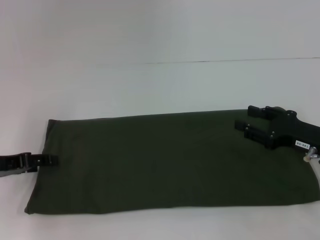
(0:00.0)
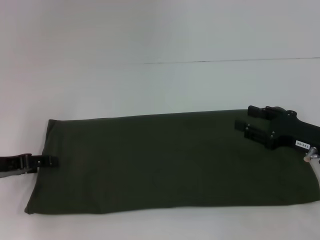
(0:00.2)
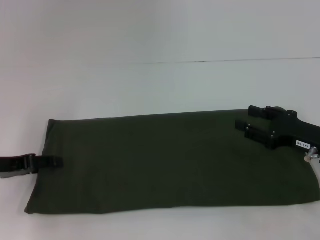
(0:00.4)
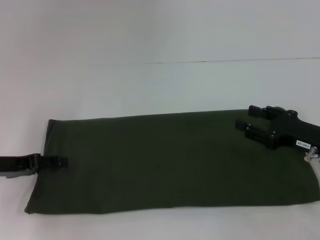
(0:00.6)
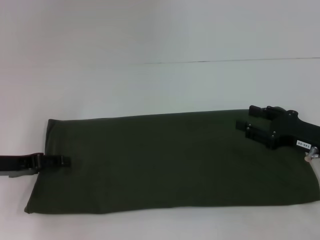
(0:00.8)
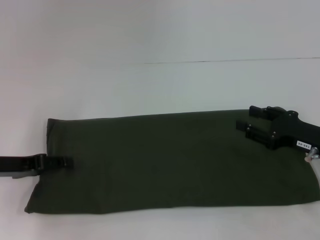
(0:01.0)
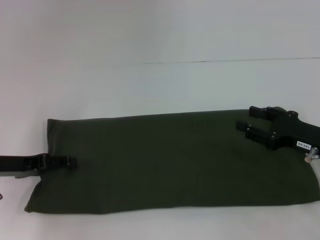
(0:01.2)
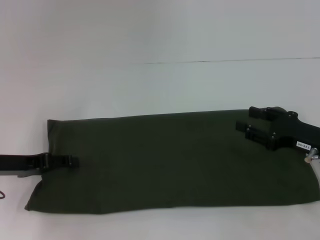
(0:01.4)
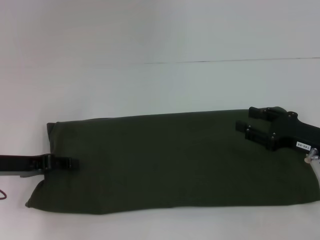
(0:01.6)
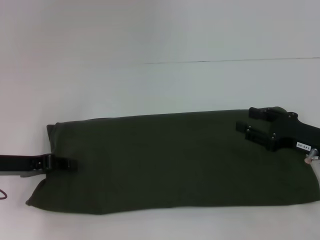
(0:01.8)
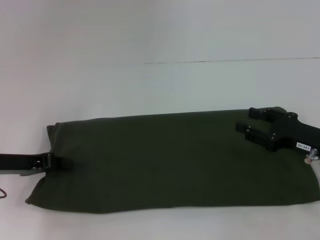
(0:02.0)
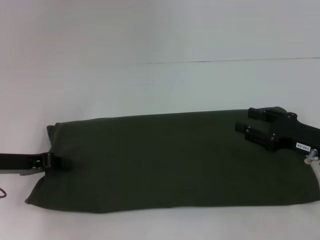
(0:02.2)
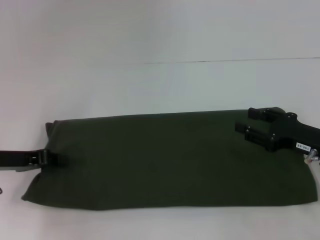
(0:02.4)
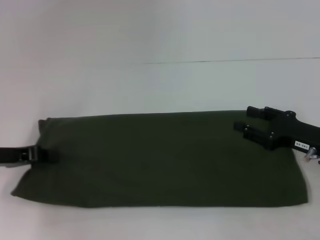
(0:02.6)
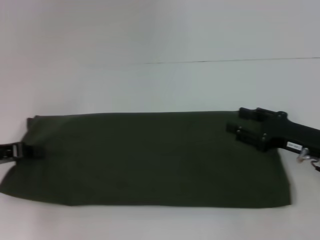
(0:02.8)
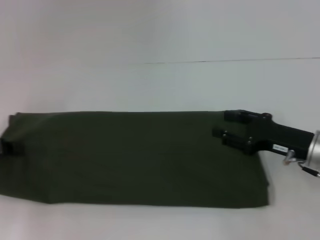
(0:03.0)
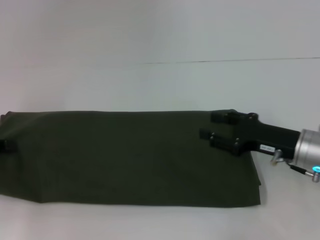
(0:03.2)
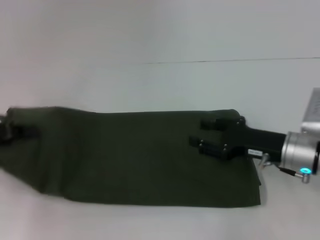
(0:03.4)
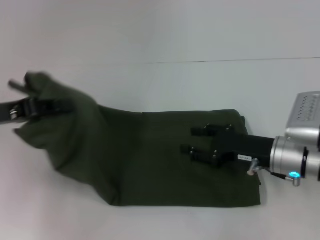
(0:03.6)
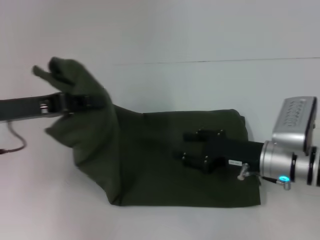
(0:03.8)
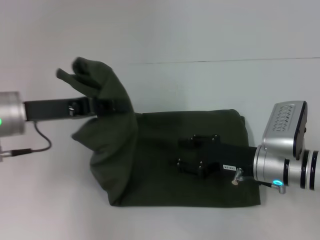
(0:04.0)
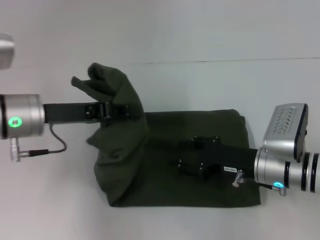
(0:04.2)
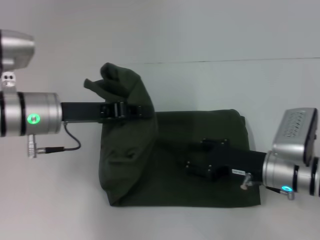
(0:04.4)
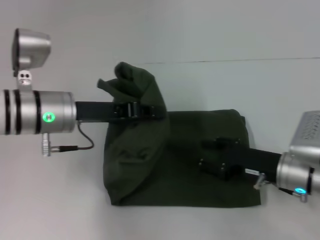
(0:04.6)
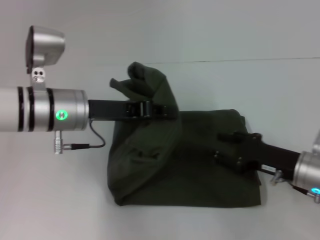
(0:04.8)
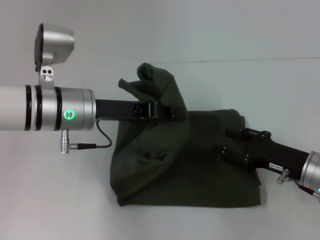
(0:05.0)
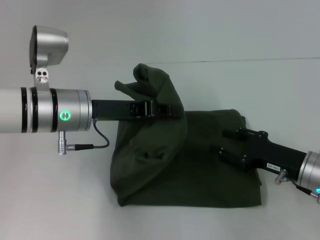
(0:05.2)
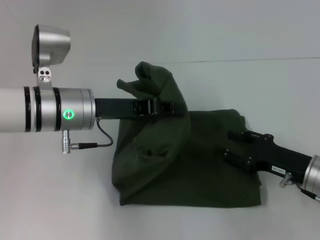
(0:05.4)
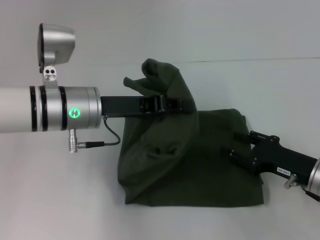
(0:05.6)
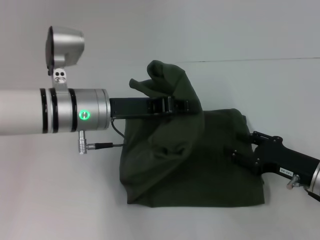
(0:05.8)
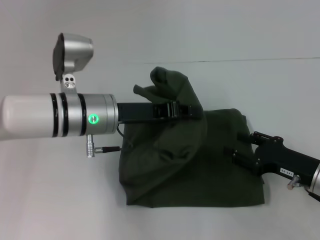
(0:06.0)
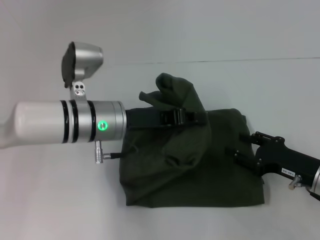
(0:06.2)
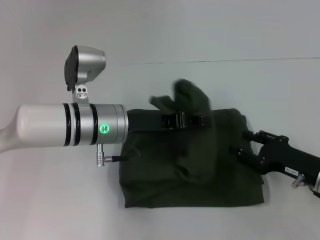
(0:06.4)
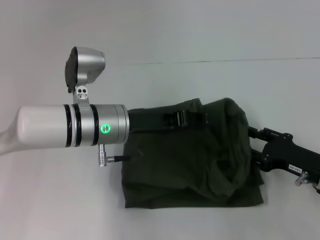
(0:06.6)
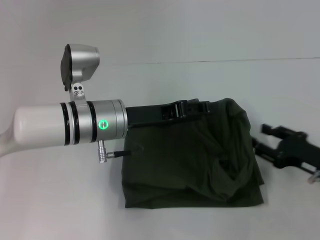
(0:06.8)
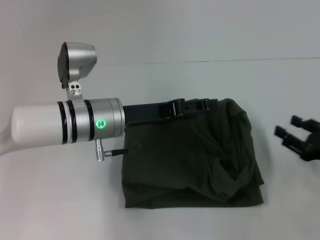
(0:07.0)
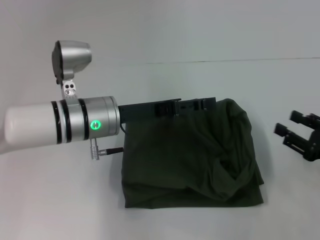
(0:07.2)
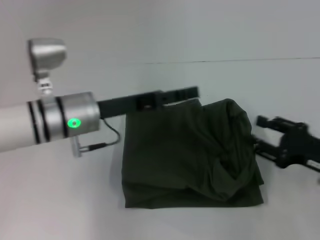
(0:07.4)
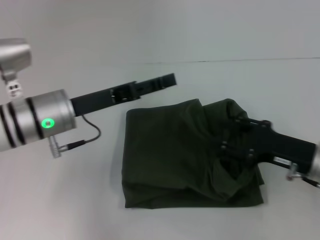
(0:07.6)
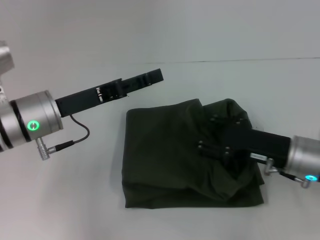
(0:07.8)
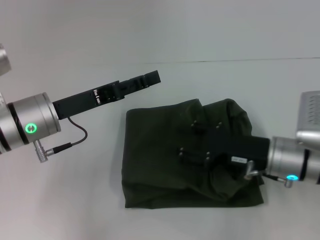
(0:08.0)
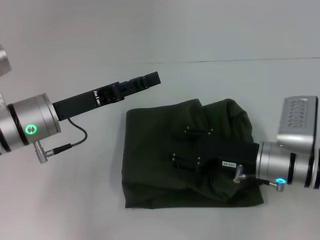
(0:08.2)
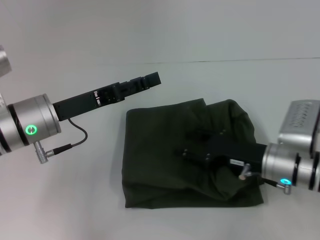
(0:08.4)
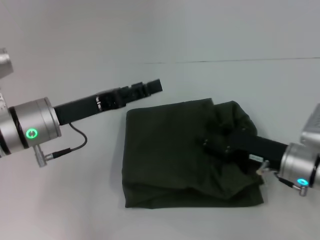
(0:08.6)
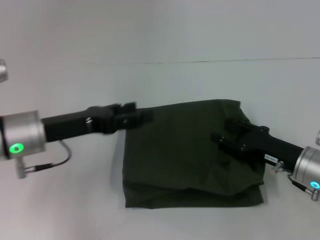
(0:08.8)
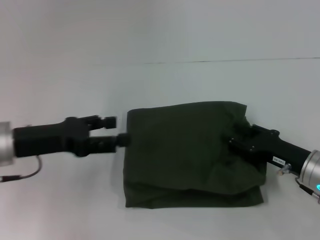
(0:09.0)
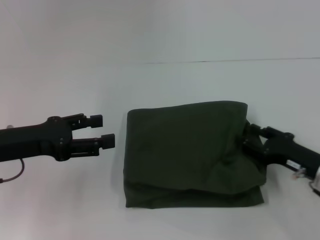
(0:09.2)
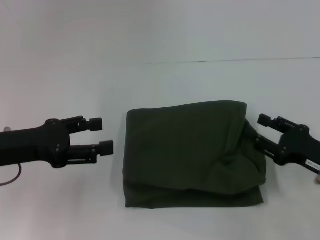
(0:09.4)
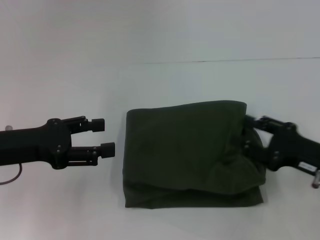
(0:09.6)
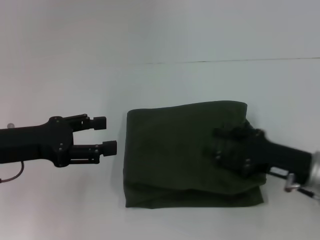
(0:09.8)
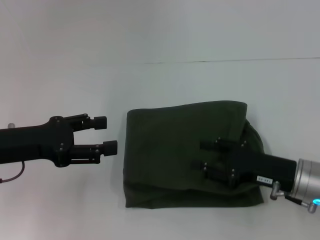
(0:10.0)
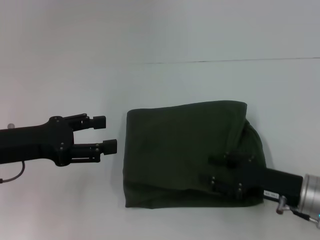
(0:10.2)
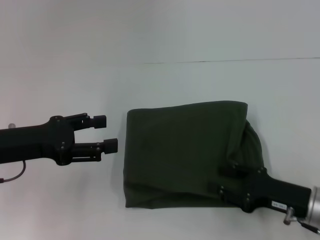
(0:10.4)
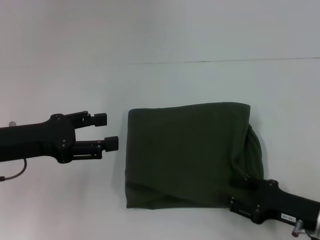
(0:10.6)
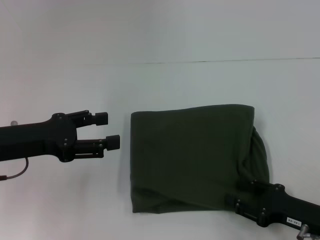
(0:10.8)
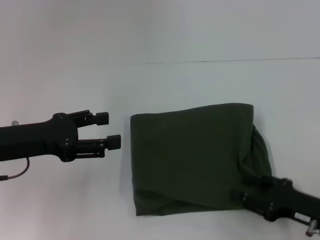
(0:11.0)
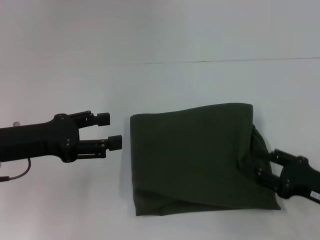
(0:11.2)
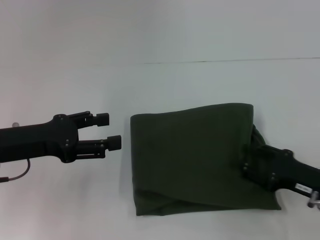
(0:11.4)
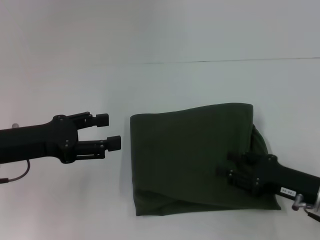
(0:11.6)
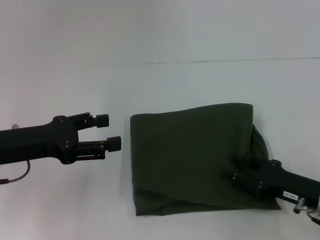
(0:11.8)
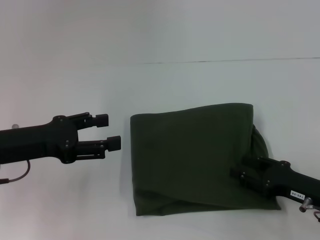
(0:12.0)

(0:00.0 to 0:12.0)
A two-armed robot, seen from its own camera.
Step, 0:00.0 - 0:09.4: Fold the clothes with your left hand.
0:00.0 - 0:01.6: There are only small adjustments of the grippers.
0:01.6 - 0:03.0: The left gripper heads to the left, covering about 5 cm, and closes its fingers.
0:03.0 - 0:04.4: The right gripper moves to the left, about 5 cm. Meanwhile the left gripper heads to the right, covering some 15 cm.
0:04.4 - 0:06.0: The grippers both shift to the right by approximately 5 cm.
0:06.0 - 0:07.6: The left gripper moves to the left, about 5 cm, and opens its fingers.
0:07.6 - 0:09.0: The left gripper heads to the left, covering about 5 cm.
0:09.0 - 0:10.4: The right gripper moves backward, roughly 5 cm.
0:10.4 - 0:12.0: The grippers move only a little.

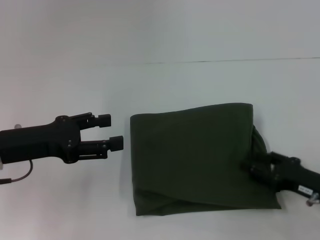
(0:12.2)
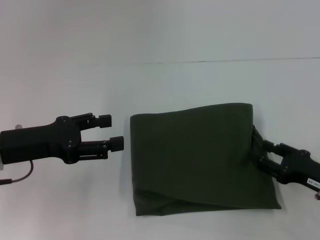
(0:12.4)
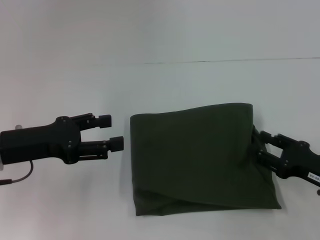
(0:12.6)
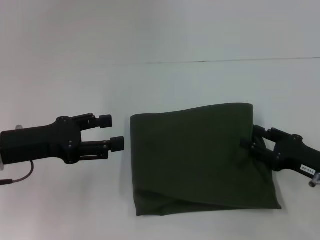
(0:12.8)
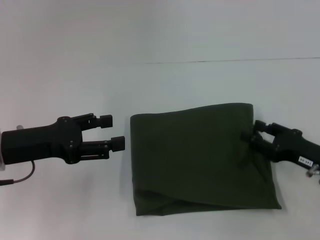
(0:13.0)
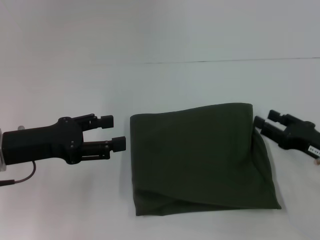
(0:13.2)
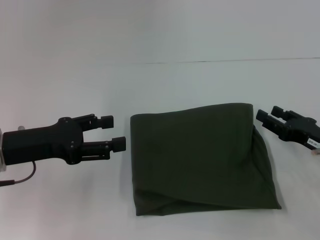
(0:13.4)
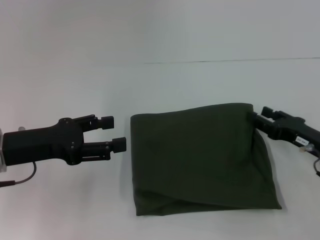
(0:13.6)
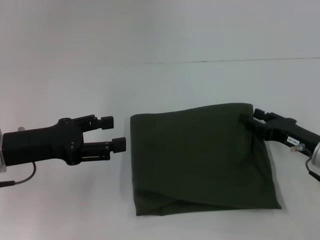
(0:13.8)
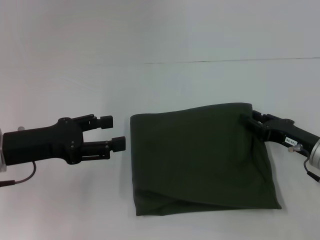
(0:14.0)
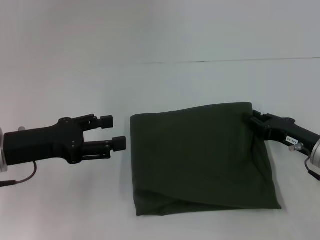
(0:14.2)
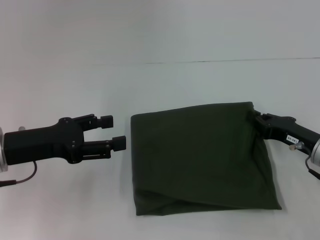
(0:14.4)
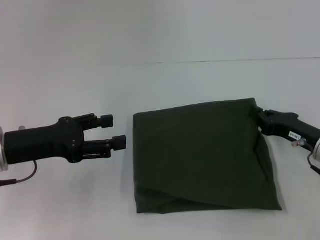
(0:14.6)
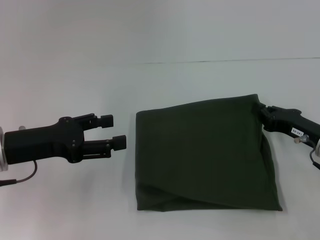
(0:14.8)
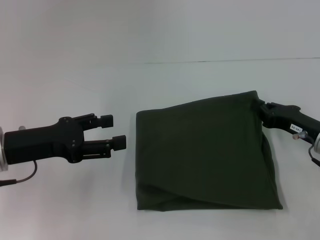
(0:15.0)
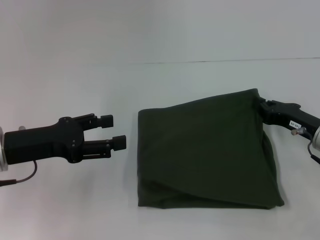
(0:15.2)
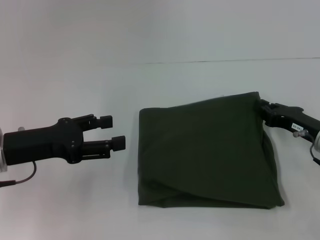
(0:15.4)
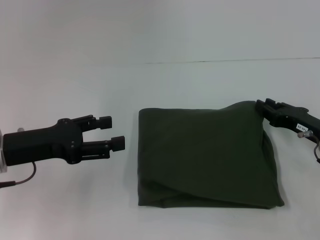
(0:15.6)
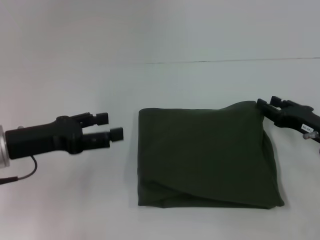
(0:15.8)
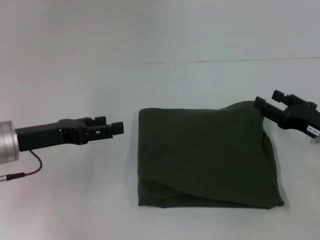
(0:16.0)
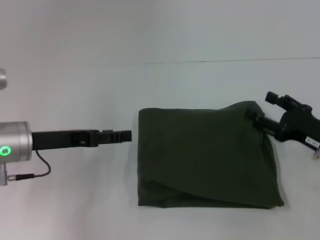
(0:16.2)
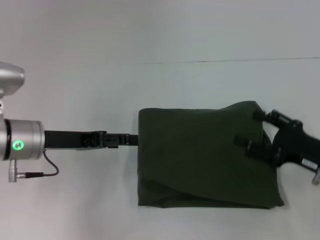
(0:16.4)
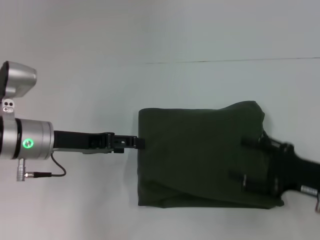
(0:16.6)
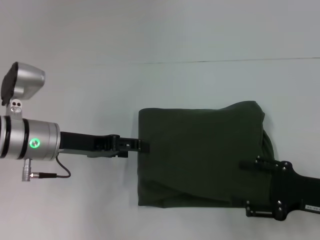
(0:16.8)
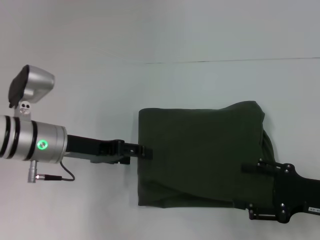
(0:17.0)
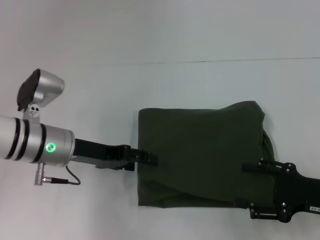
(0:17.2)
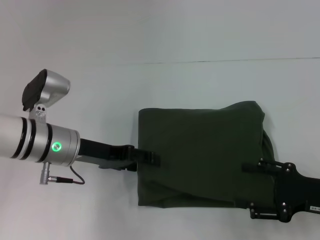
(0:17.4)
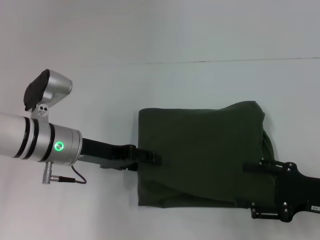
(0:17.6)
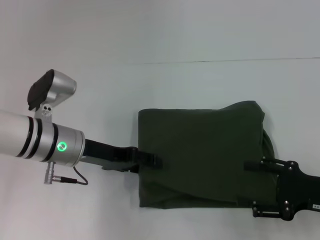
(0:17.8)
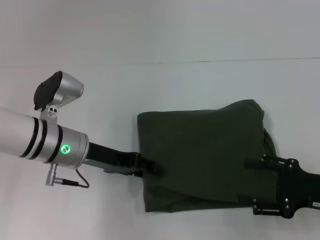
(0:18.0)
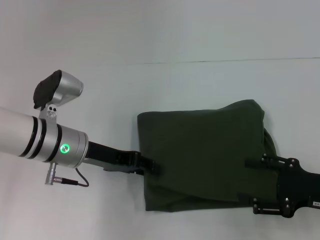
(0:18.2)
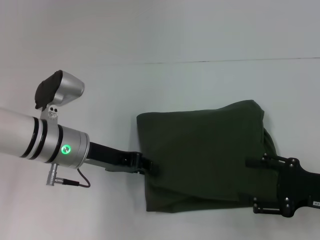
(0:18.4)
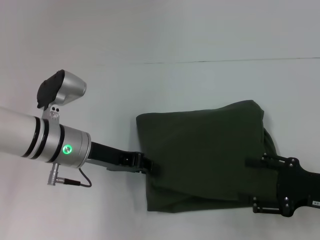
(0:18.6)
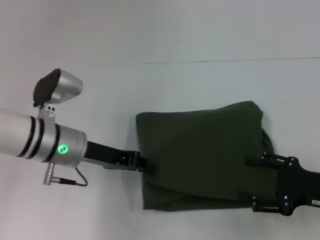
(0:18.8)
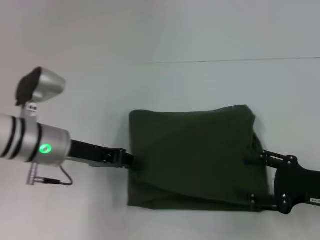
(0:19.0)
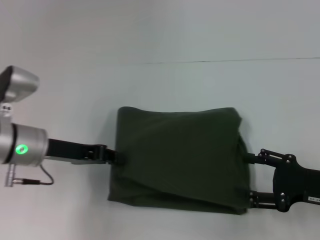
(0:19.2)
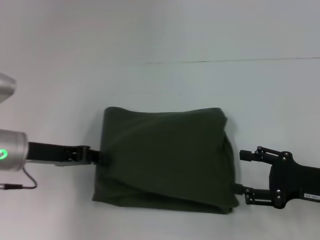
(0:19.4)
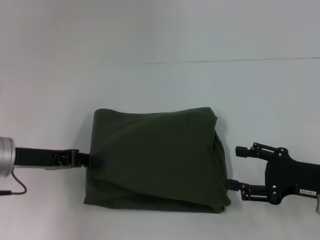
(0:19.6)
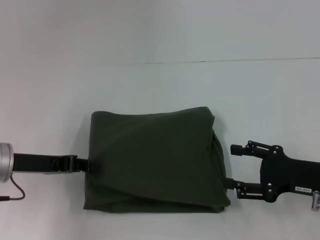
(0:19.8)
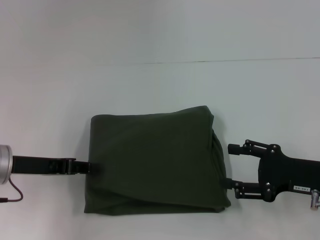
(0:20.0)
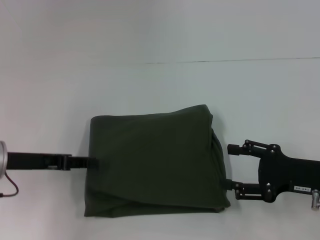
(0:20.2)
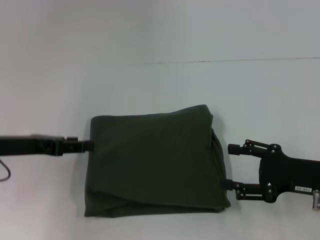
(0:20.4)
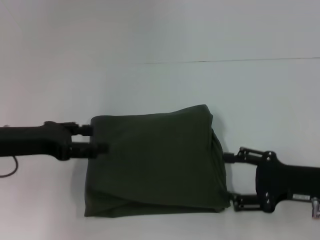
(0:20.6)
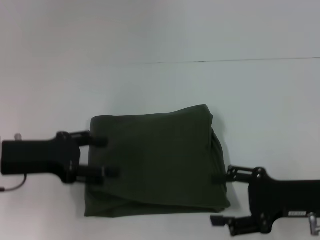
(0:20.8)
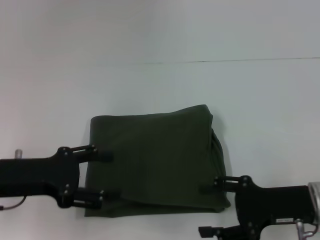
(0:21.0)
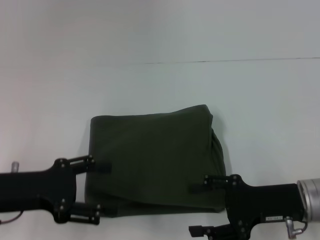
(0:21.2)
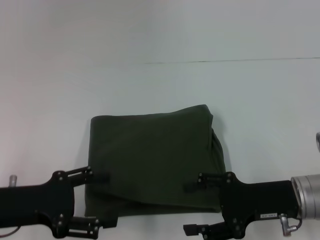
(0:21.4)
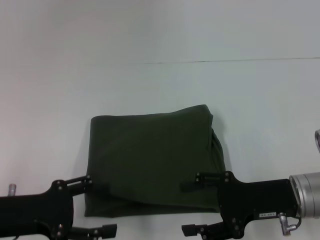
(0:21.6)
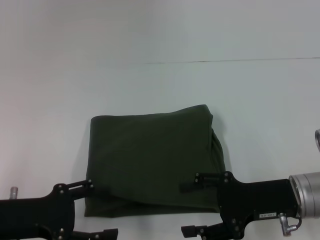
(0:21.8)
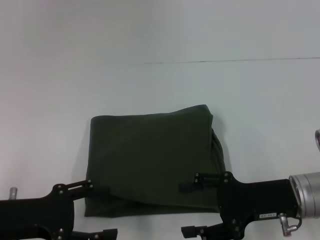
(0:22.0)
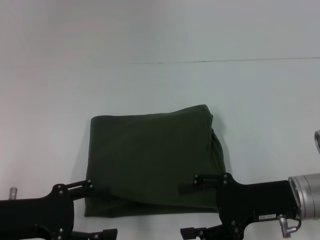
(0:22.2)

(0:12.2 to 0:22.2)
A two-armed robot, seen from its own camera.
0:12.2 - 0:13.6: The right gripper is displaced forward by about 5 cm.
0:13.6 - 0:15.0: The right gripper closes.
0:15.0 - 0:16.4: The right gripper heads backward, covering about 5 cm, and opens. The left gripper ends up about 5 cm from where it was.
0:16.4 - 0:18.0: The left gripper shifts roughly 5 cm to the right.
0:18.0 - 0:19.4: The left gripper is displaced to the left by some 10 cm, and closes its fingers.
0:19.4 - 0:20.8: The left gripper opens.
0:20.8 - 0:22.2: The left gripper heads backward, covering approximately 5 cm.
